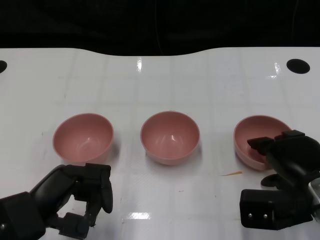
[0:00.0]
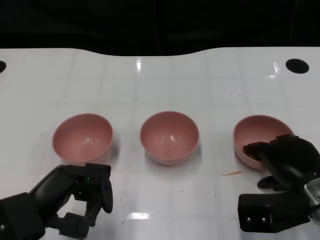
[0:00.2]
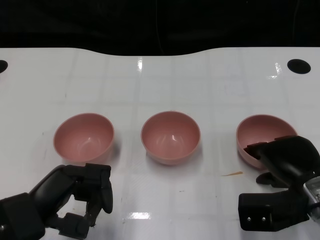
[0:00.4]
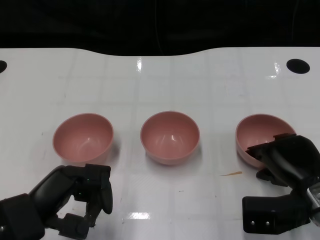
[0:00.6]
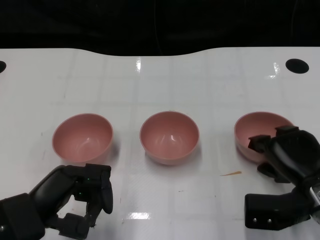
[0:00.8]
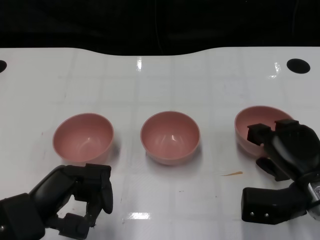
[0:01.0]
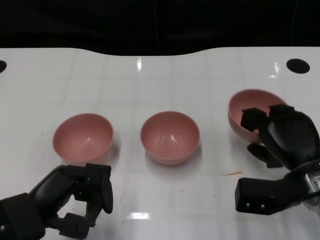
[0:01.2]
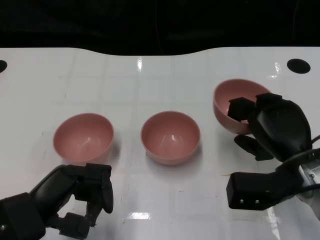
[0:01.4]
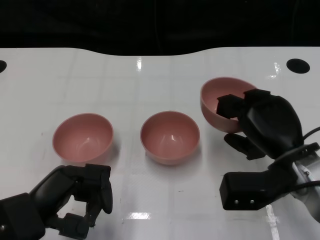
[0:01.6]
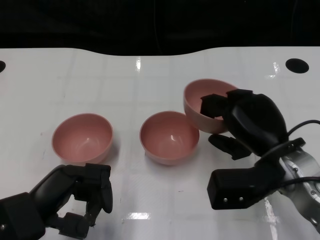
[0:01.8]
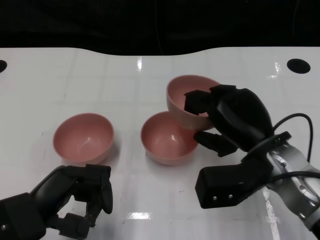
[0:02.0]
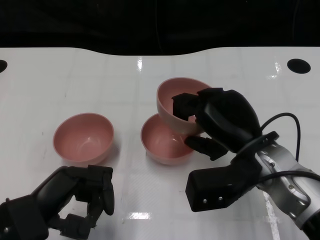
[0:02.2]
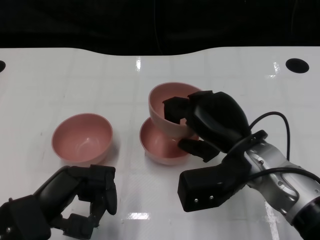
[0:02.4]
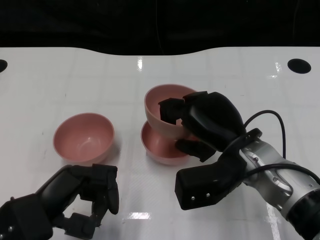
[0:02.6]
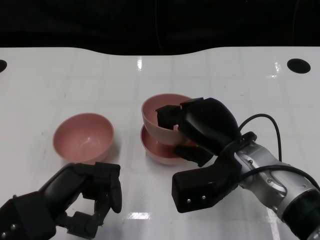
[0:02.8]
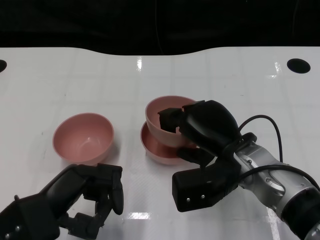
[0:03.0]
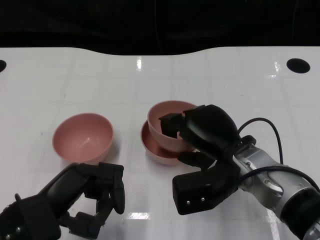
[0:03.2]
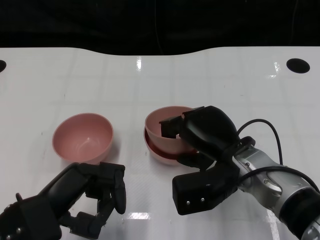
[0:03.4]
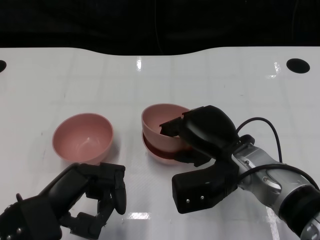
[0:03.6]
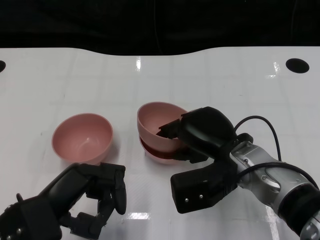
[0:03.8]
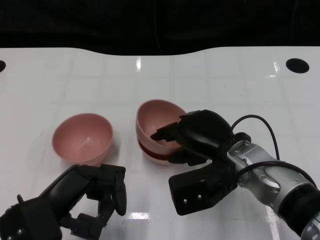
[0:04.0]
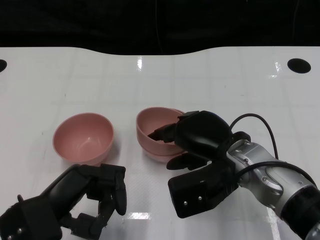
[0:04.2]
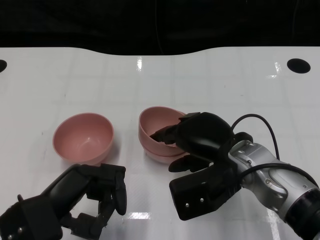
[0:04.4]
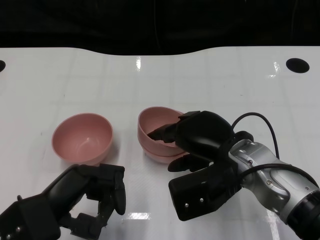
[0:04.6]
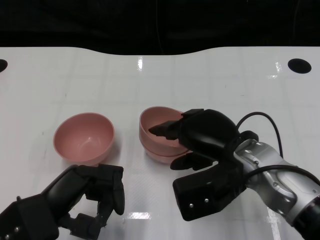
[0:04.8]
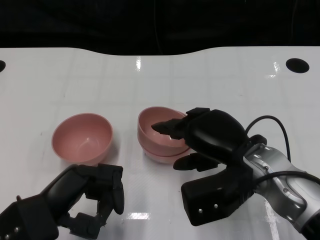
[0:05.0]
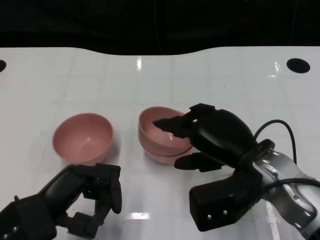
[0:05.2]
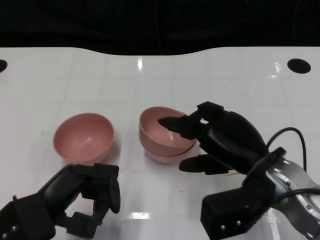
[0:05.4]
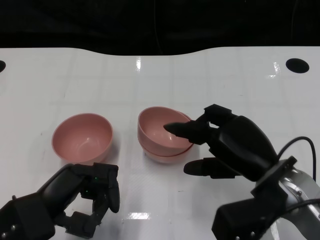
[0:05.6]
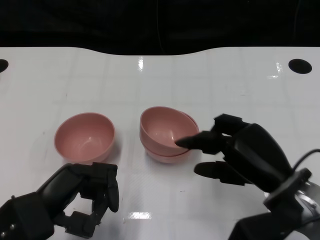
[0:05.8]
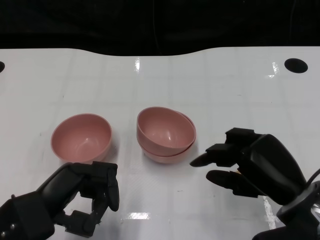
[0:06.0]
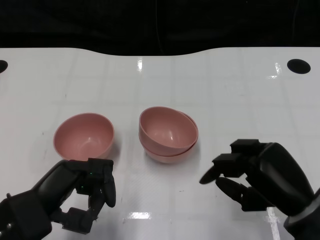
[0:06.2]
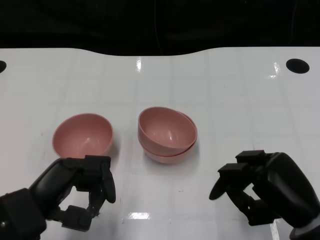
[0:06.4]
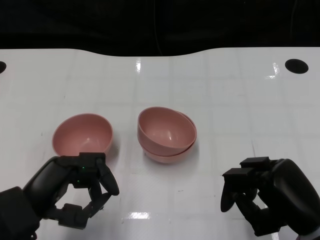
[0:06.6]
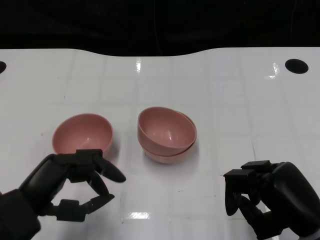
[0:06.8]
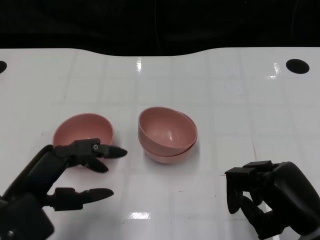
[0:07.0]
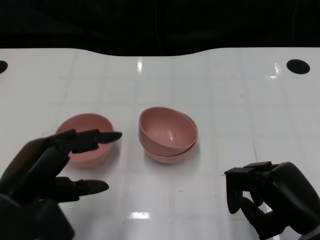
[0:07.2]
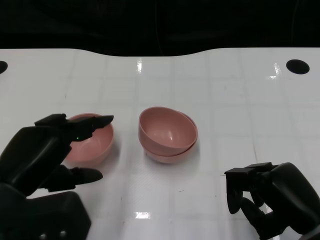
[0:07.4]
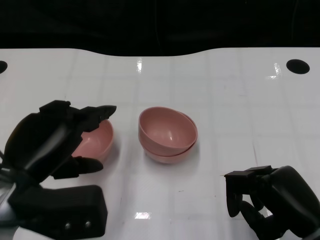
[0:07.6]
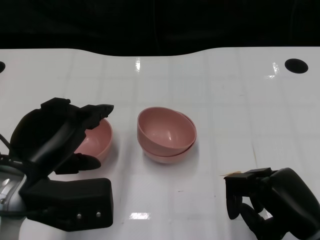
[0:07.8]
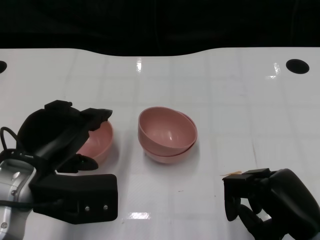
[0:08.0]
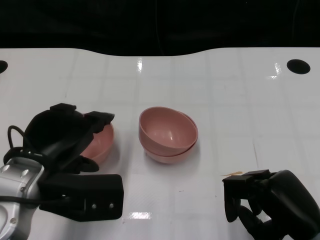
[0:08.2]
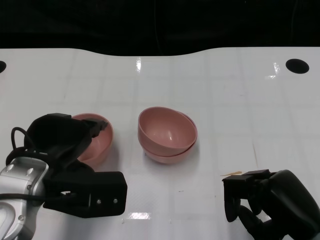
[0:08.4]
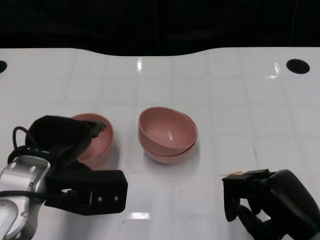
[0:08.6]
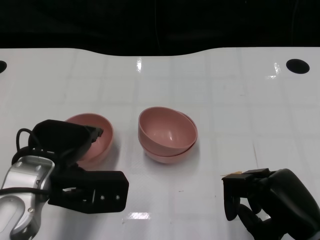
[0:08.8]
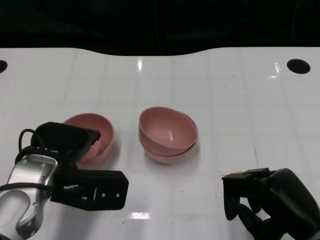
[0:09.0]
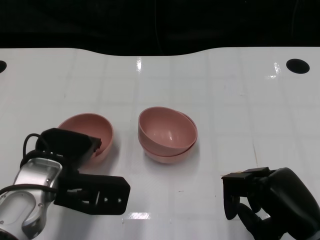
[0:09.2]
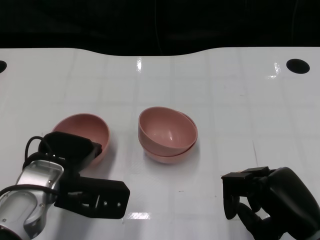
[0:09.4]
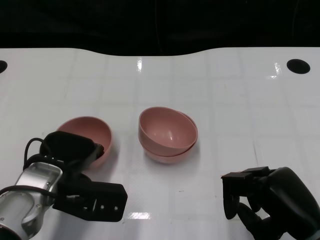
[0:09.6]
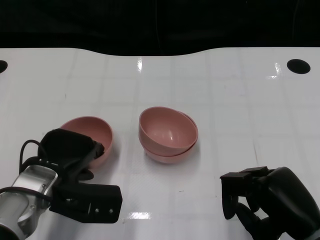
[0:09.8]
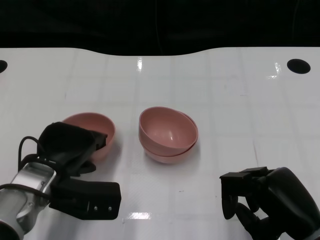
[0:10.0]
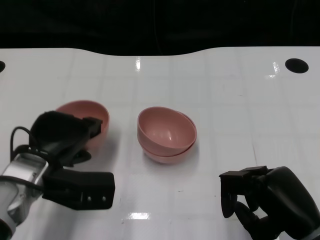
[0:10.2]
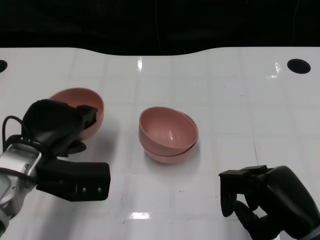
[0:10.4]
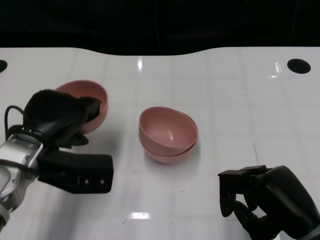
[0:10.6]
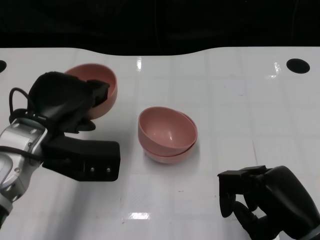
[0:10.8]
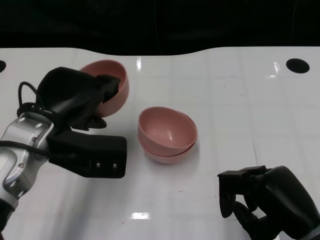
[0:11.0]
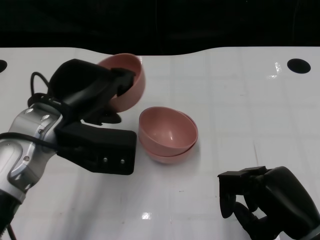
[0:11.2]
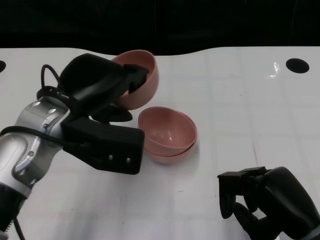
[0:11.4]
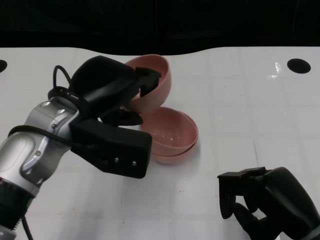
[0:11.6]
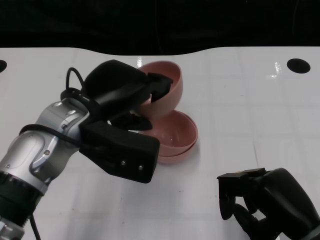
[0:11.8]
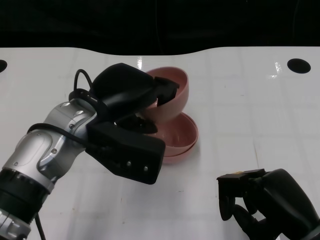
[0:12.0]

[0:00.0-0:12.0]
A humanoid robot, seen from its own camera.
Task of the whole recording: Pick up the bowl on one side of the table and place it on top of the middle bowl, then pick up the bowl on the other side of the table and place it on top of the middle bowls.
Step, 0:01.2 to 0:05.6: Place the bowl on the right onto the bowl in the middle with right gripper.
Step, 0:05.8 to 0:10.0: Grasp the bowl on the left with the left gripper.
0:00.0 to 0:01.6: The right hand shifts by roughly 5 cm.
0:01.6 to 0:03.0: The right hand heads to the left, covering some 10 cm.
0:03.0 to 0:04.4: The hands stay close to where they were, moving slightly.
0:04.4 to 0:06.0: The right hand goes some 10 cm to the right and backward.
0:06.0 to 0:07.6: The left hand goes approximately 5 cm upward.
0:07.6 to 0:09.0: The left hand shifts approximately 5 cm forward.
0:09.0 to 0:10.4: There are only small adjustments of the hands.
0:10.4 to 0:12.0: The left hand is displaced to the right and upward by some 10 cm.

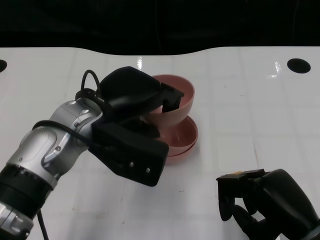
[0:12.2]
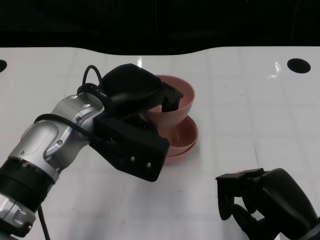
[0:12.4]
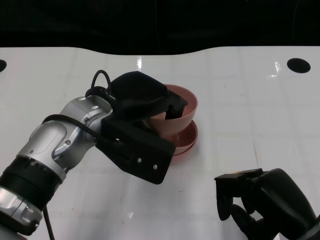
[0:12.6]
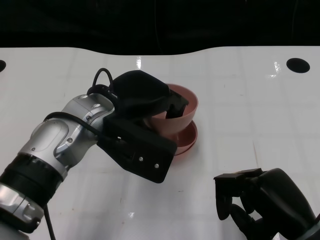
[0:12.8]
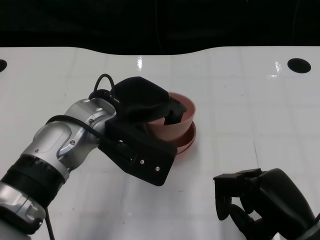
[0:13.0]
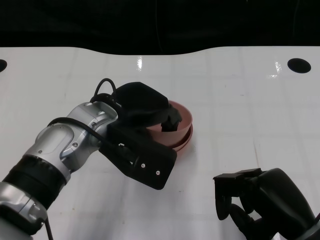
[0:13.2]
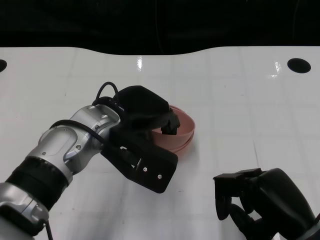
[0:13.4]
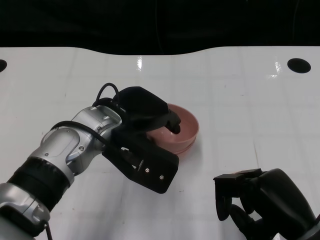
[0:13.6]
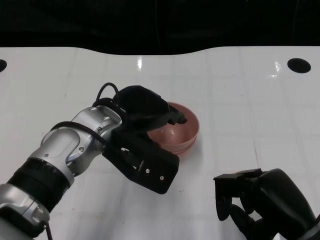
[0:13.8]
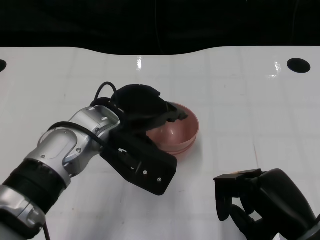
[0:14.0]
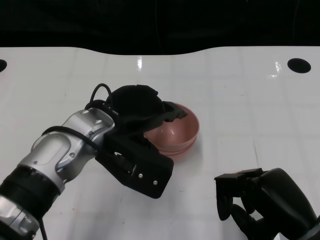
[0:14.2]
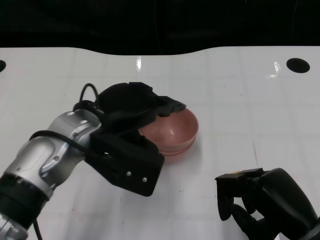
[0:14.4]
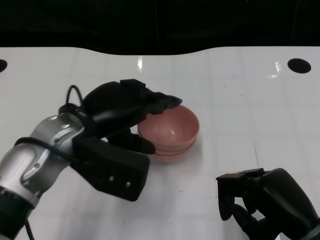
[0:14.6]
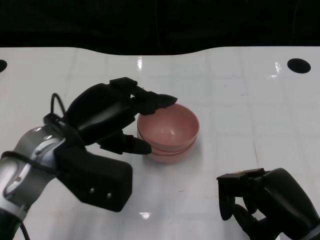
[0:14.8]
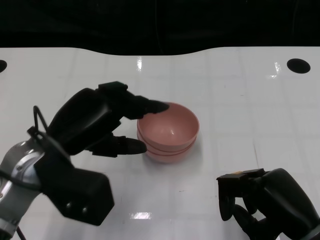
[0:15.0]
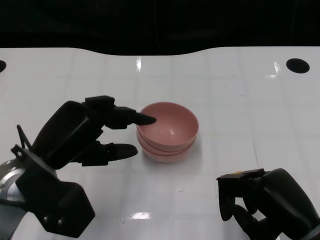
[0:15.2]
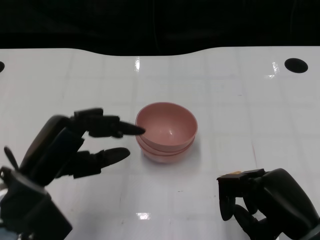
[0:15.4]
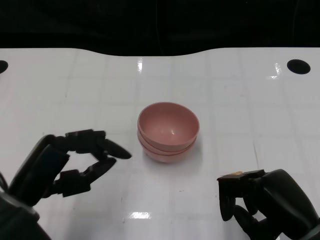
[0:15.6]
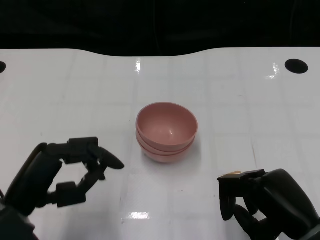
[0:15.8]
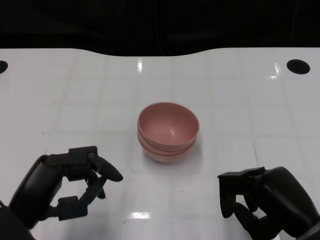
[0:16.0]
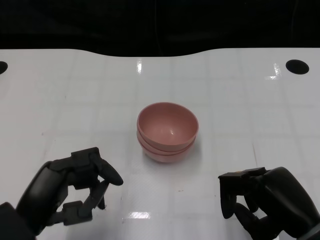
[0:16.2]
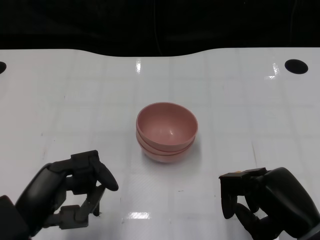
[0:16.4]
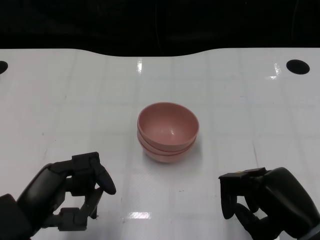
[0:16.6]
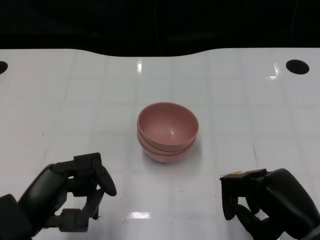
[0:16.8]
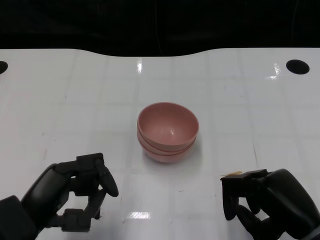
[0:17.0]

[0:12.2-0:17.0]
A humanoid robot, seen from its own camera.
Task of the whole recording: Pick up the bowl on one side of the table and place it on top of the middle bowl, then pick up the bowl on the other side of the table and place it on top of the middle bowls.
Step, 0:12.2 to 0:15.0: Place the bowl on the left onto the bowl in the middle with left gripper.
0:12.2 to 0:13.8: The hands make only small movements.
0:13.8 to 0:15.4: The left hand moves to the left and backward, roughly 15 cm.
0:15.4 to 0:17.0: The left hand heads backward, covering roughly 5 cm.

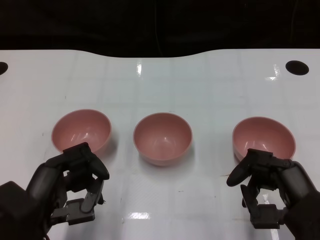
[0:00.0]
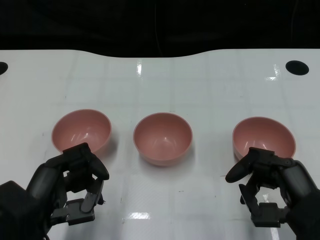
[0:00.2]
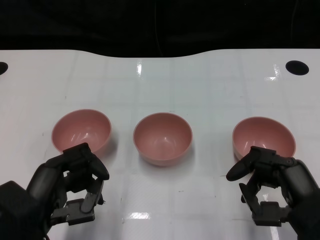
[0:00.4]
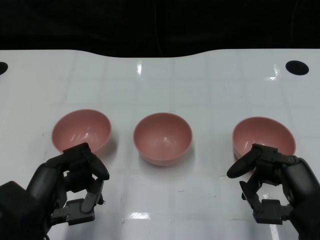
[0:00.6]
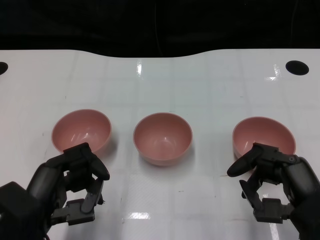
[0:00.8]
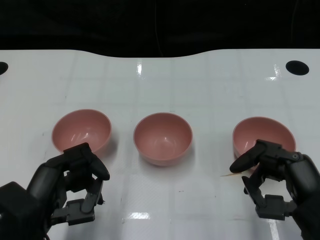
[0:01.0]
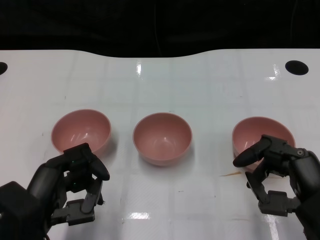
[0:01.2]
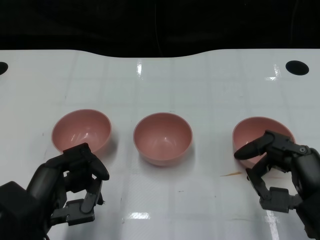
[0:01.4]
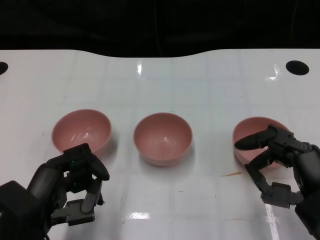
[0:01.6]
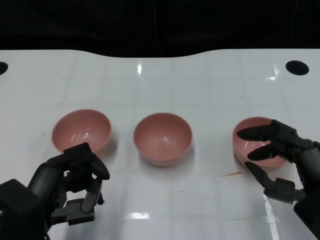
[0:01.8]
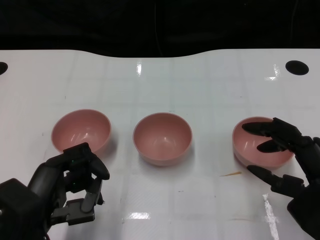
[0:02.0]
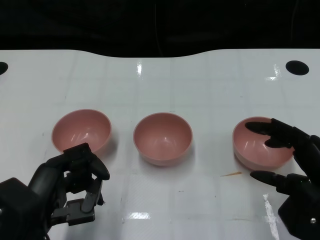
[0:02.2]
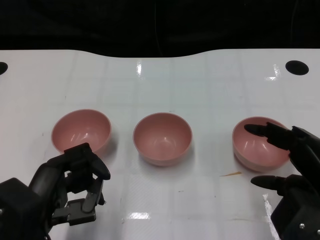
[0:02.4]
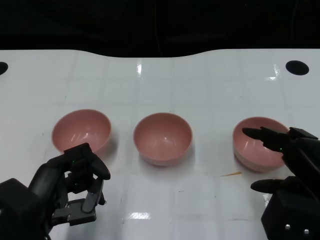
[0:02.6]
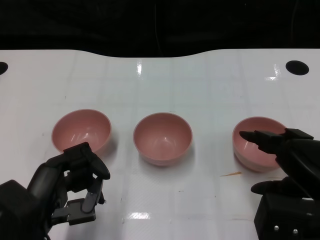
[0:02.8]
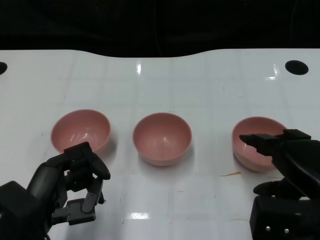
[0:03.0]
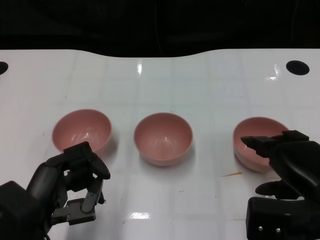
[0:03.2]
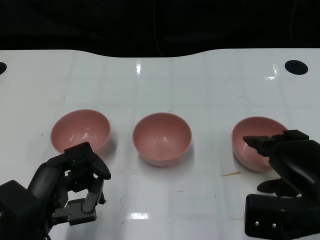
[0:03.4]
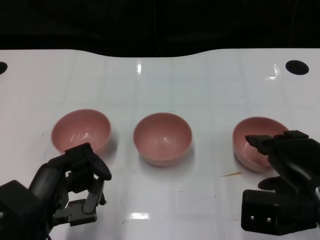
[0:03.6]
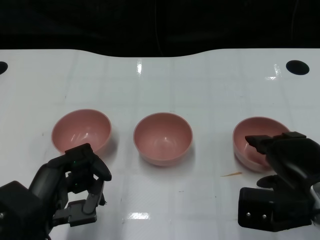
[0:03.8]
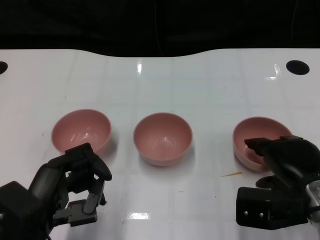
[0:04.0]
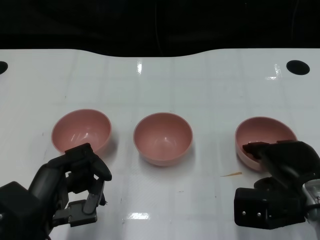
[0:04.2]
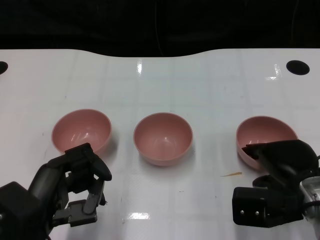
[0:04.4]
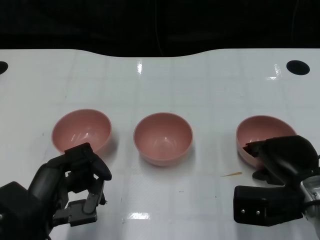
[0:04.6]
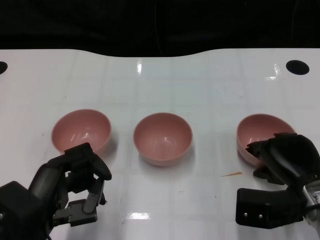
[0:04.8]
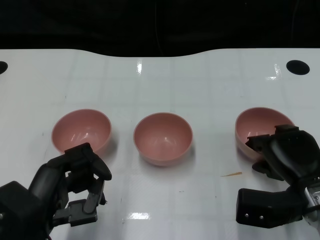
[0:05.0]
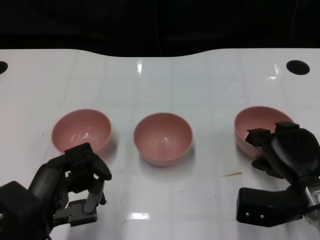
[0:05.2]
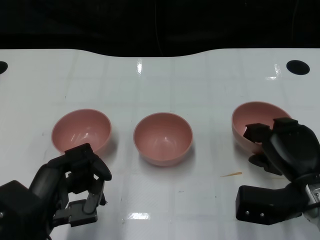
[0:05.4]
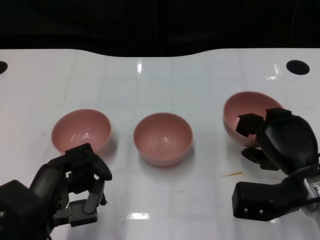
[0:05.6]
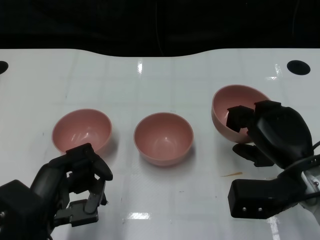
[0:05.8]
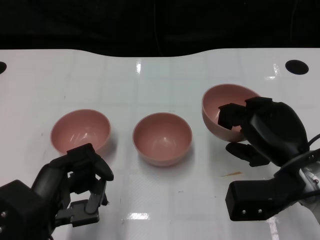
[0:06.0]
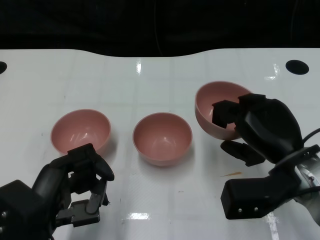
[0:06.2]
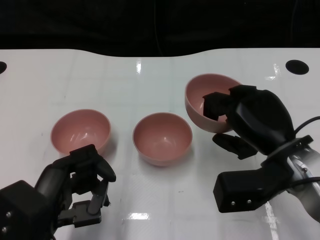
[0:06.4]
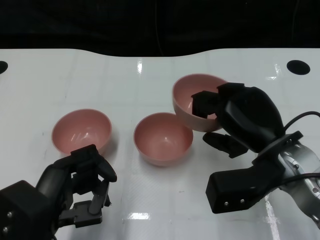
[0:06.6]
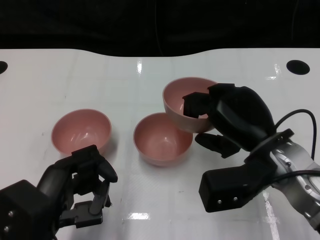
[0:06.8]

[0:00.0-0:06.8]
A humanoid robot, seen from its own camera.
Task of the whole recording: Pick up the bowl on one side of the table and place it on top of the middle bowl, then pick up the bowl on the other side of the table and place it on top of the middle bowls.
Step, 0:00.0 to 0:05.2: Grasp the bowl on the right with the right gripper.
0:02.8 to 0:04.0: The right hand moves downward and forward, roughly 10 cm.
0:05.4 to 0:06.8: The right hand moves upward and to the left, some 10 cm.
